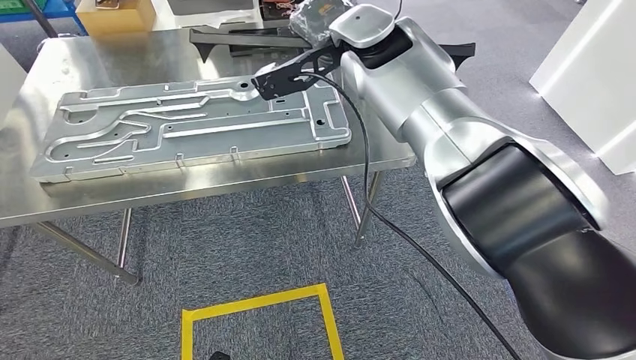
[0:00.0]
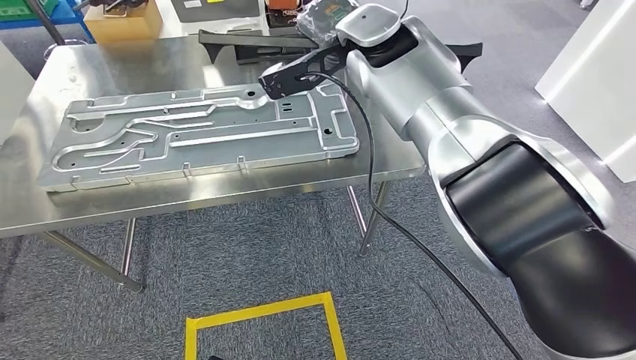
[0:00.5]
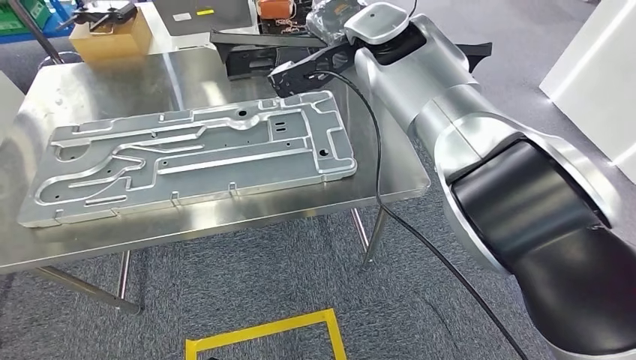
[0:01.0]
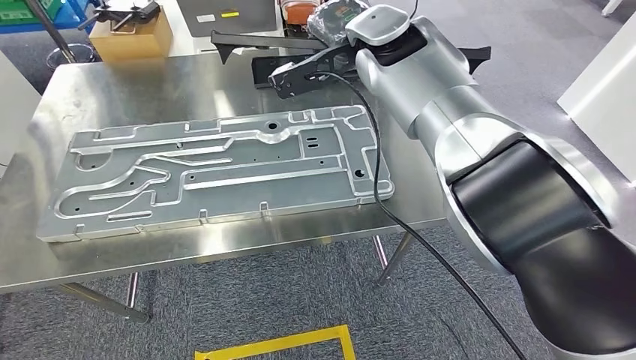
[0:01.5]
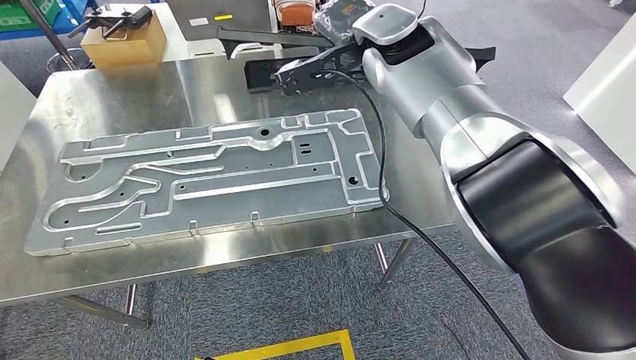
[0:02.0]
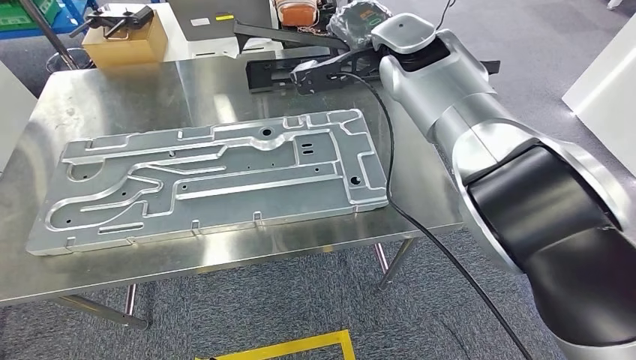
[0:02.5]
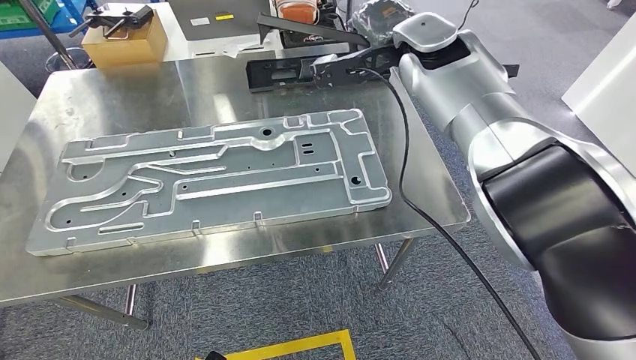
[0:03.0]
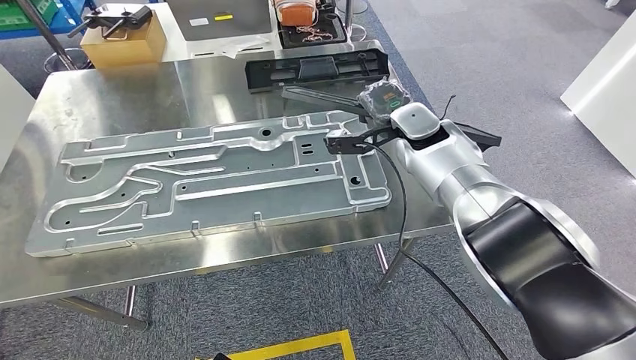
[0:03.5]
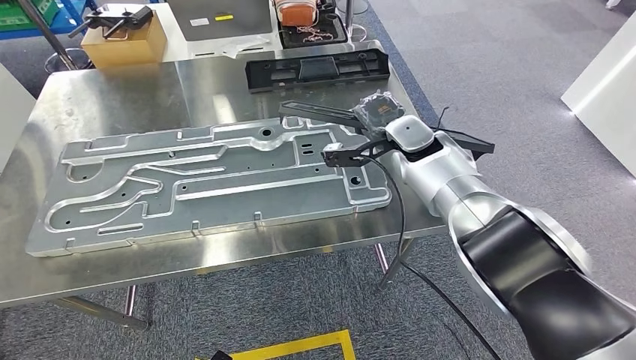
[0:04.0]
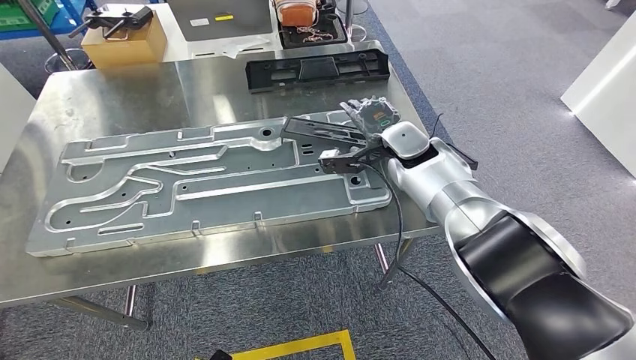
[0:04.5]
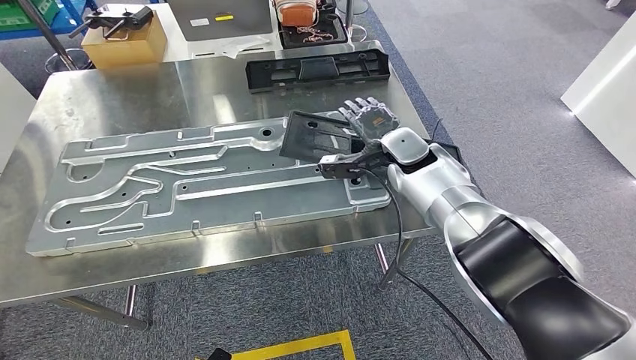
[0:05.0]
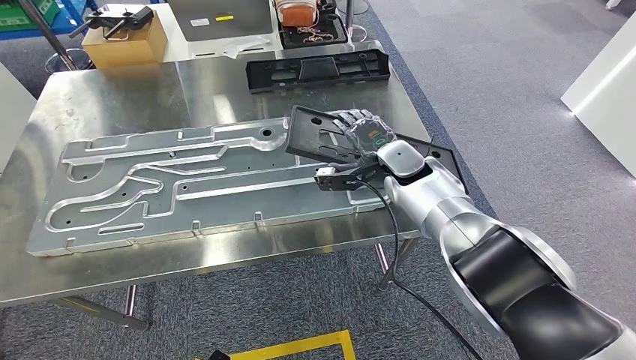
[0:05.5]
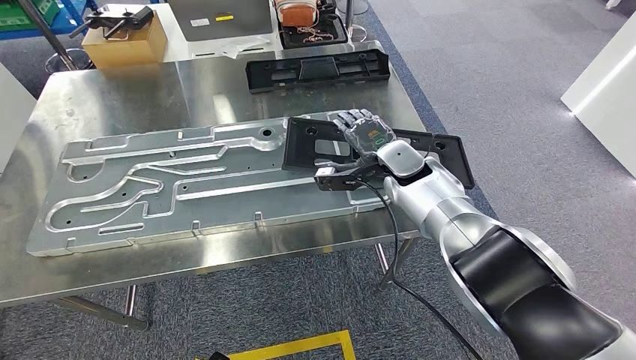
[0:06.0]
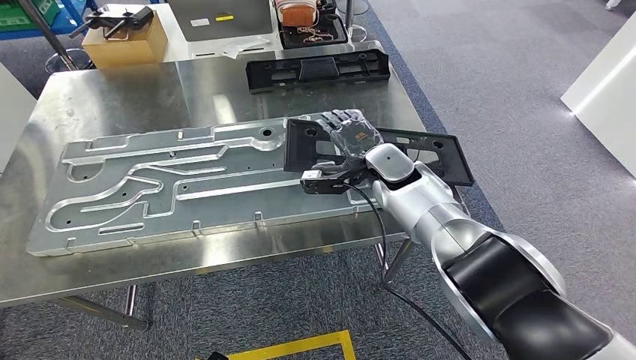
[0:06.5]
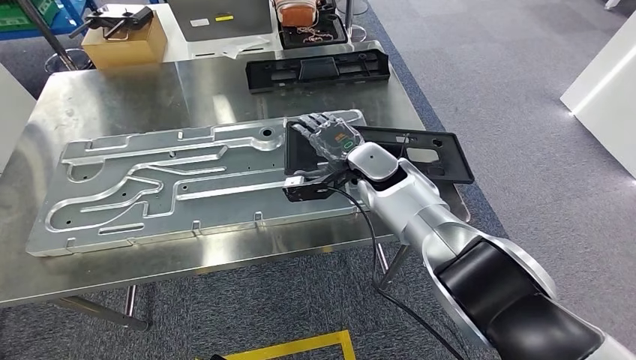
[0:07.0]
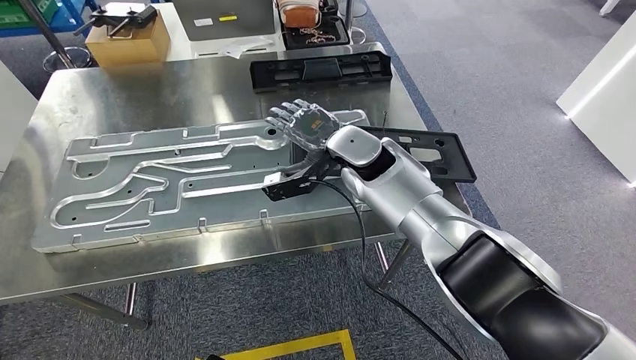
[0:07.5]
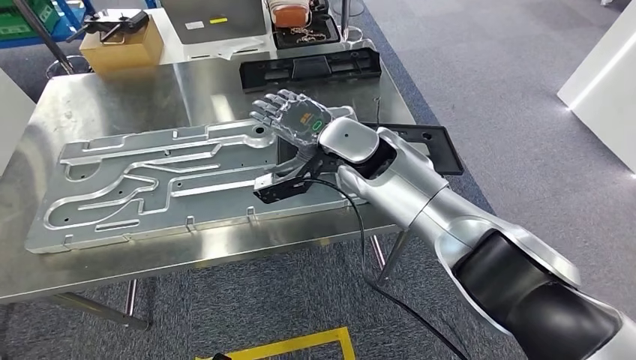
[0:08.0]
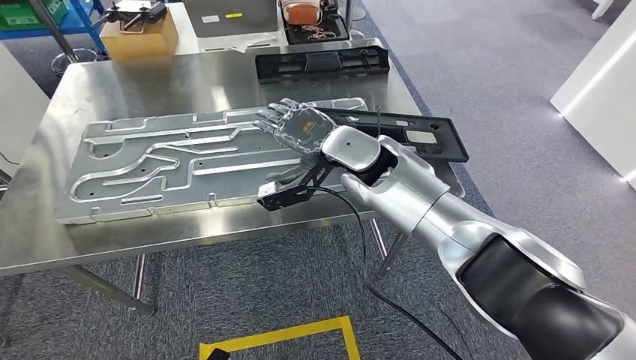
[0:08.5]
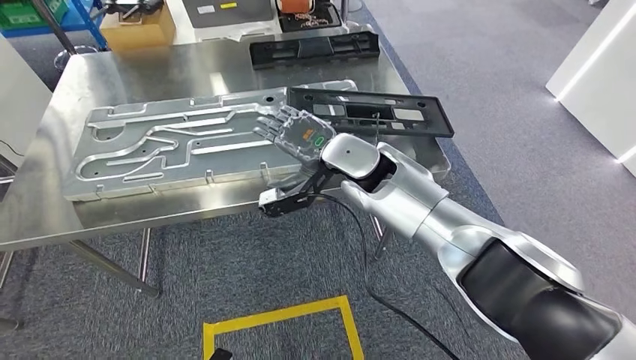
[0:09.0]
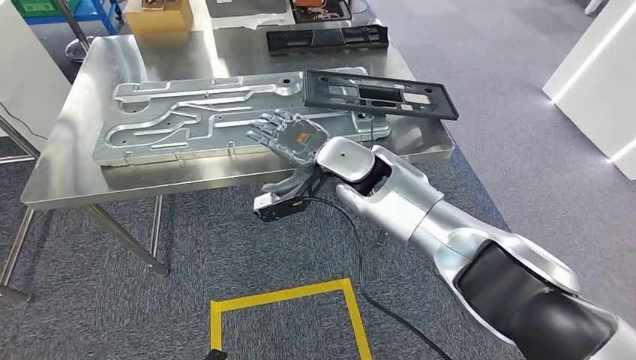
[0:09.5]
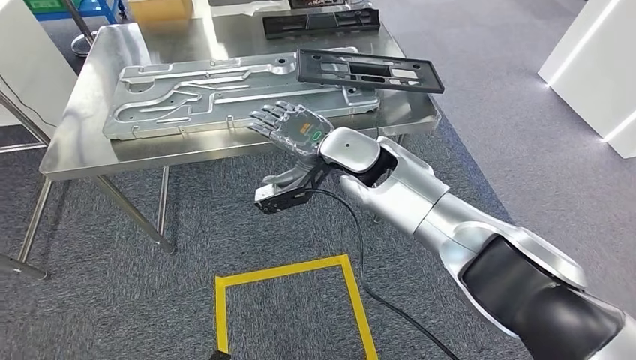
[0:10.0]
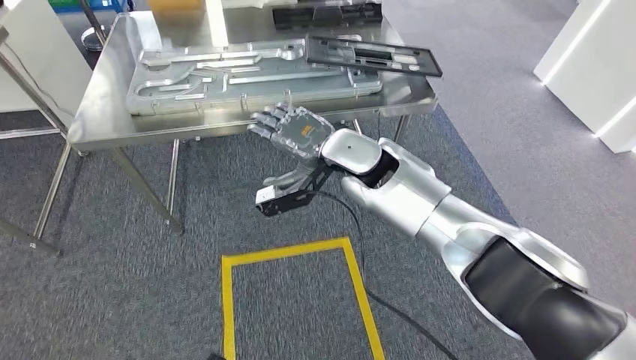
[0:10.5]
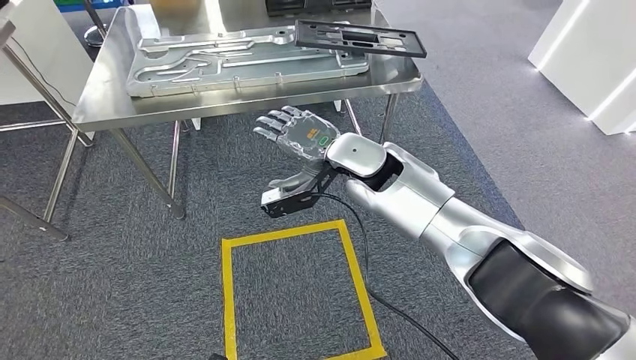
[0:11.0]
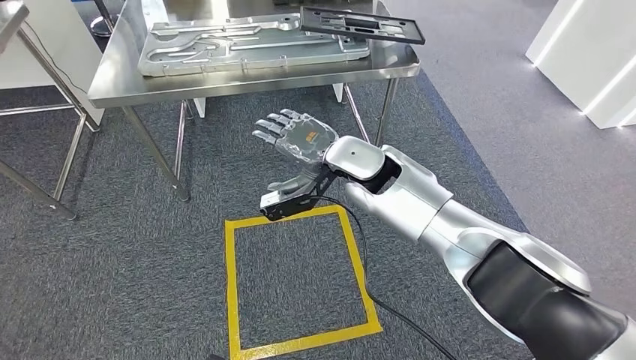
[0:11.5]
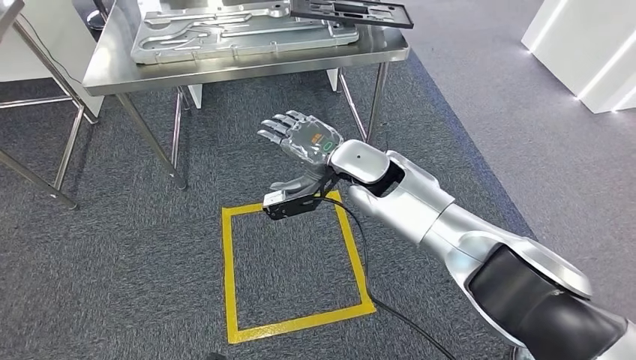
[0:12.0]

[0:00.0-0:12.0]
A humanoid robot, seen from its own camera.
Step, 0:00.0 to 0:06.5: Insert the large material into the corresponding slot on the workbench.
0:04.0 to 0:06.0: The hands make only small movements.

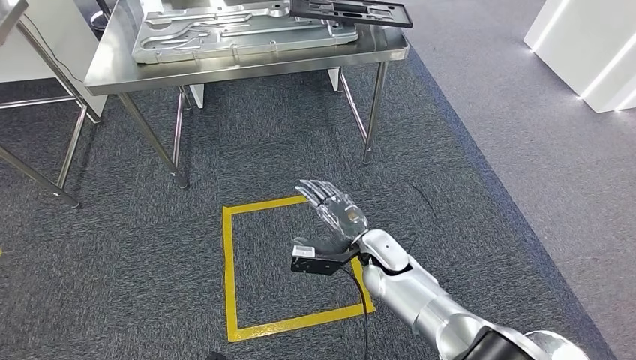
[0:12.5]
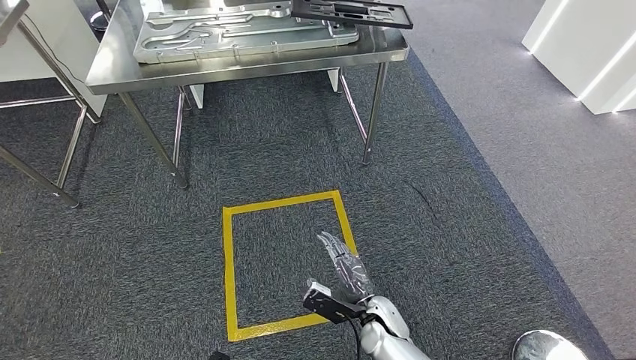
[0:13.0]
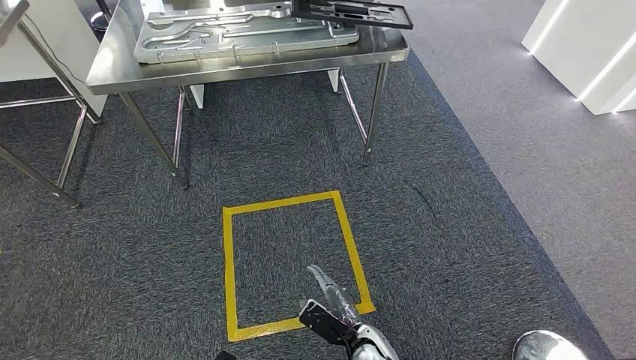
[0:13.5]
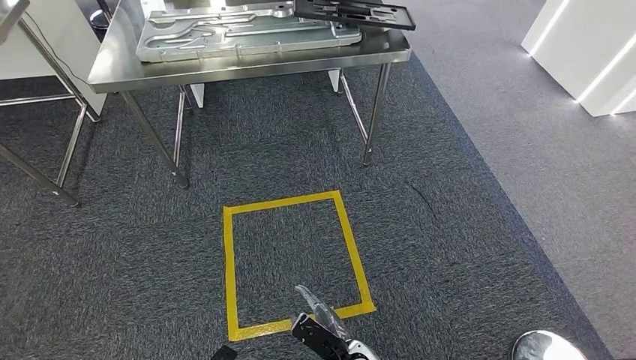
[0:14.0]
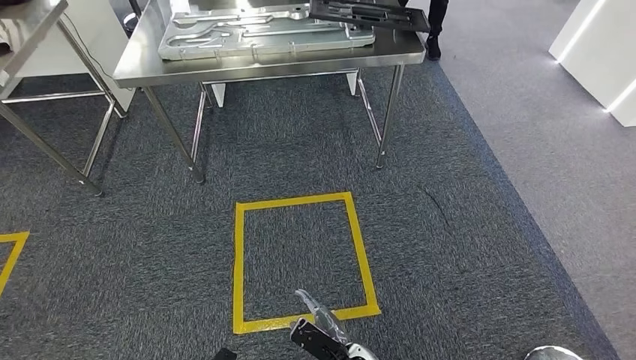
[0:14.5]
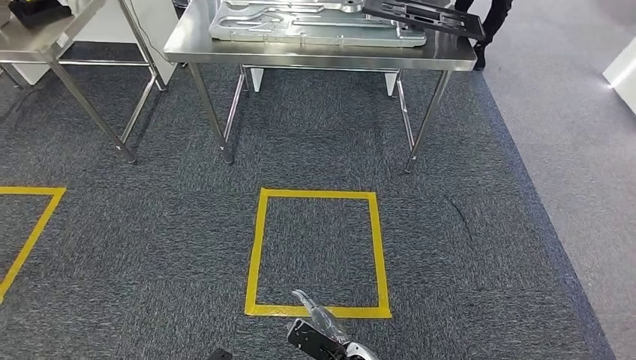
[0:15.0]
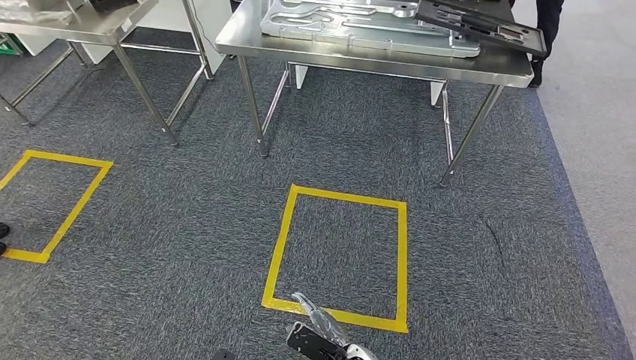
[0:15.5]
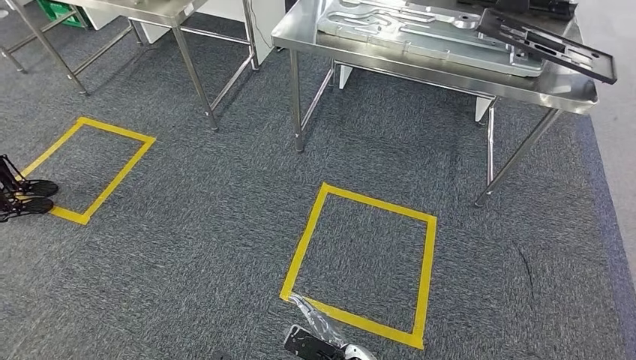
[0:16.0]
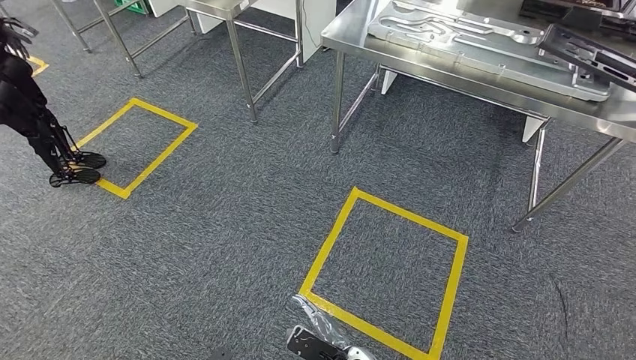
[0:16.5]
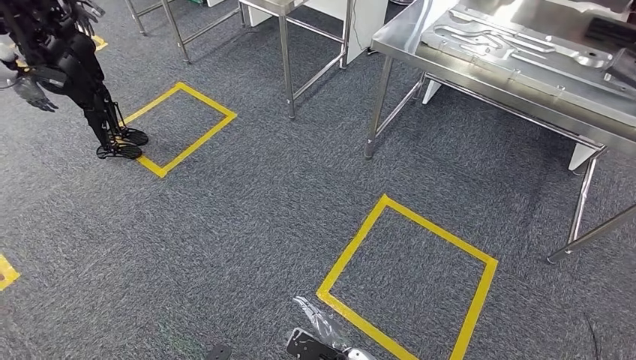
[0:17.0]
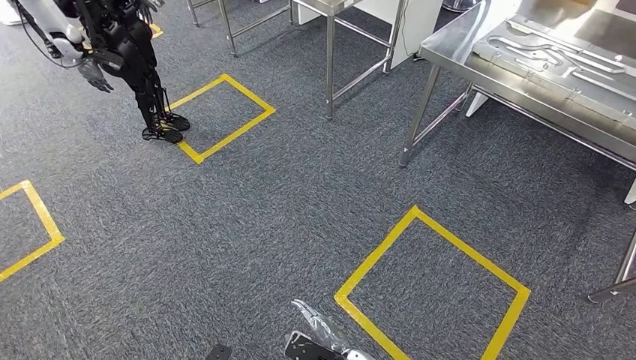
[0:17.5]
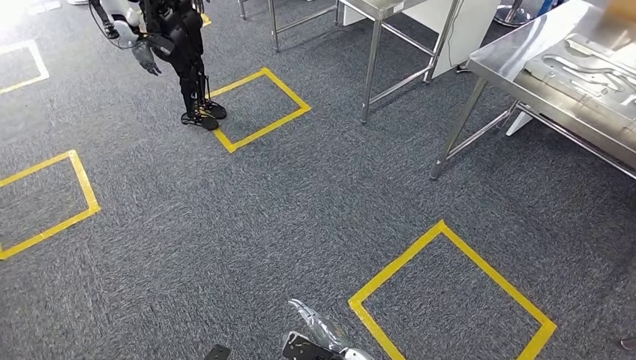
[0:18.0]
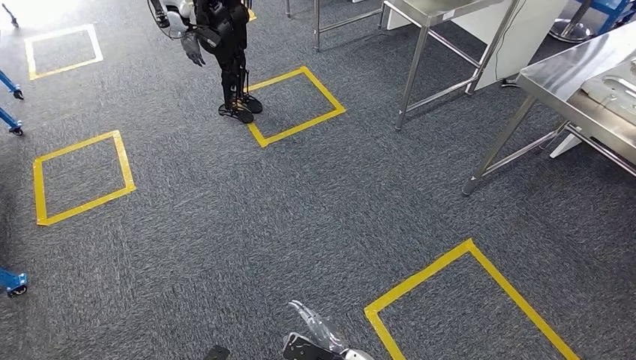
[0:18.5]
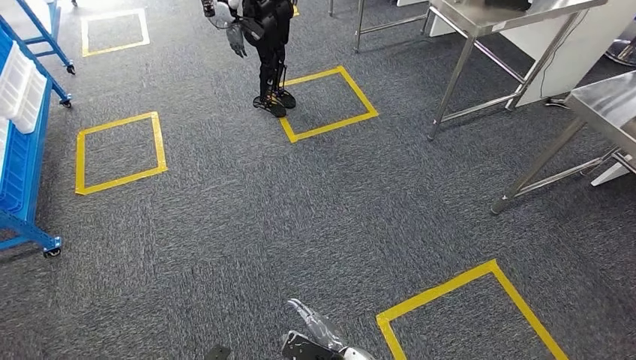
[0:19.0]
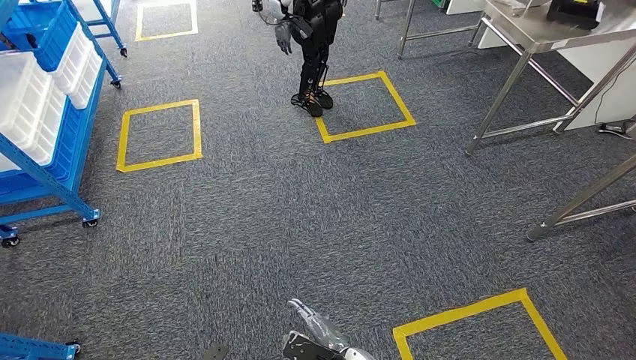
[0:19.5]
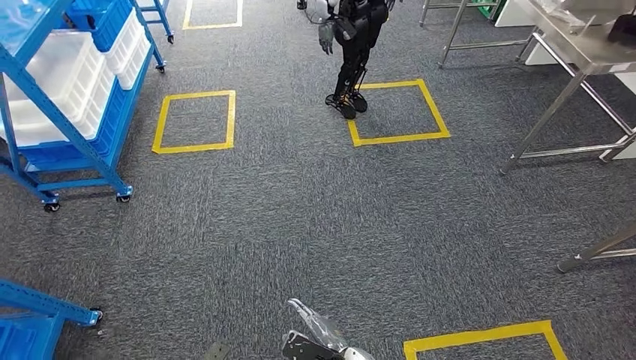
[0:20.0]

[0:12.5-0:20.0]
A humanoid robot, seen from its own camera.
Step, 0:12.5 to 0:20.0: Move to the initial position of the shelf.
